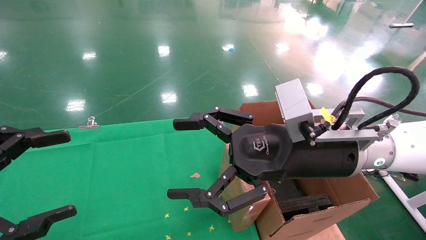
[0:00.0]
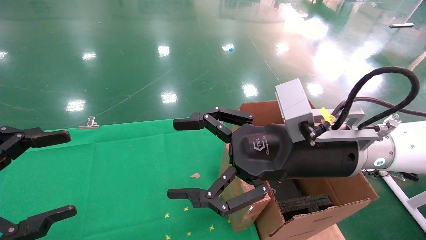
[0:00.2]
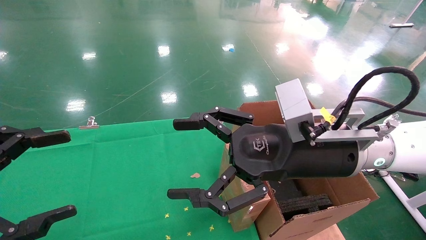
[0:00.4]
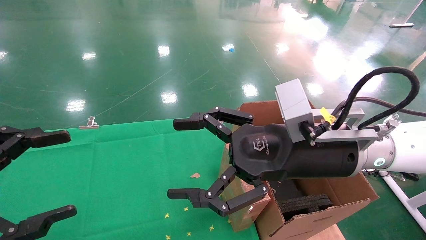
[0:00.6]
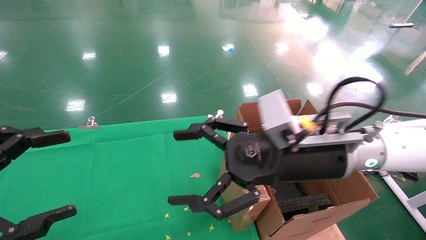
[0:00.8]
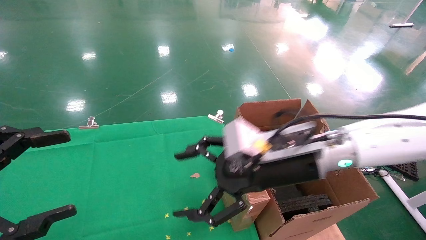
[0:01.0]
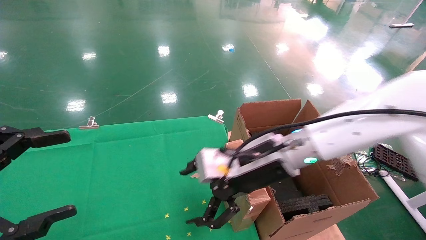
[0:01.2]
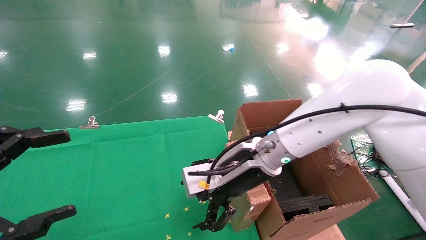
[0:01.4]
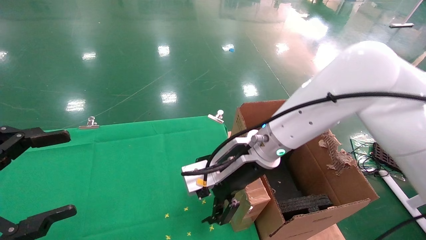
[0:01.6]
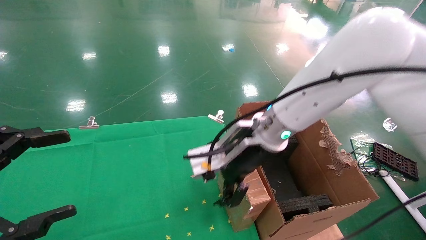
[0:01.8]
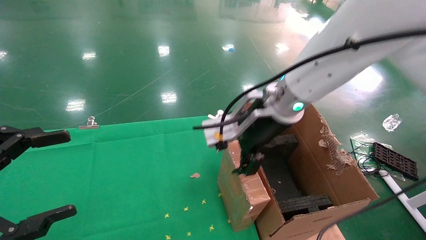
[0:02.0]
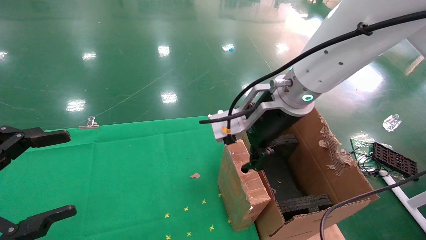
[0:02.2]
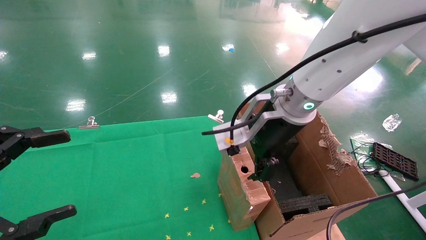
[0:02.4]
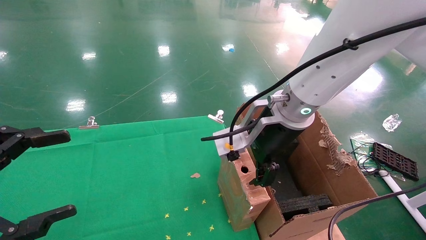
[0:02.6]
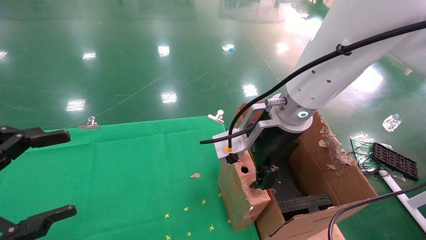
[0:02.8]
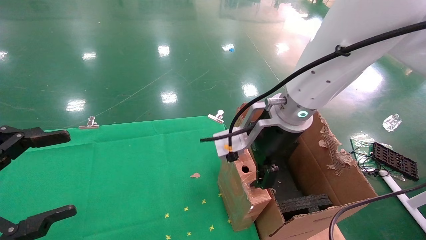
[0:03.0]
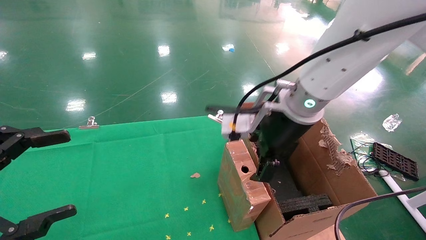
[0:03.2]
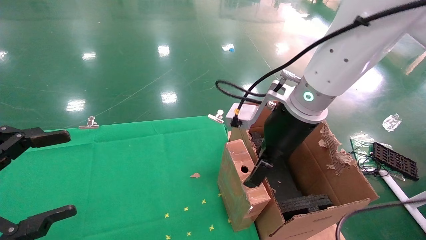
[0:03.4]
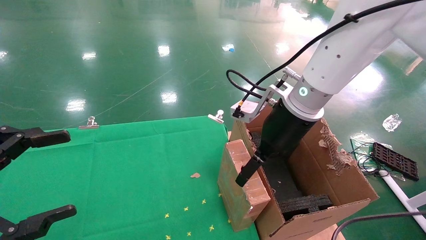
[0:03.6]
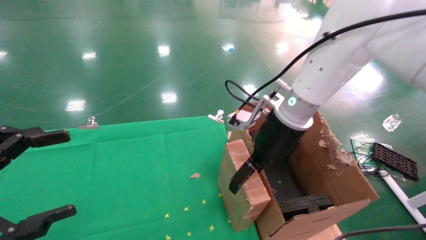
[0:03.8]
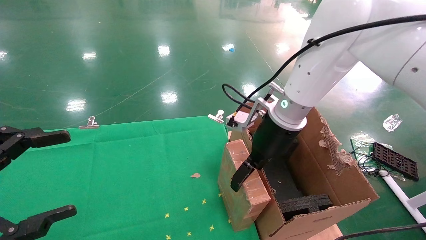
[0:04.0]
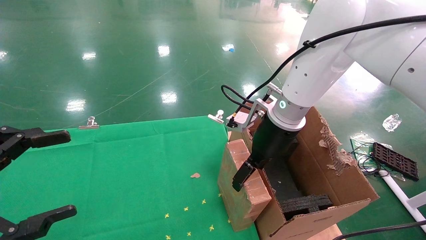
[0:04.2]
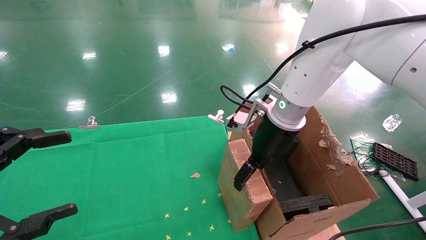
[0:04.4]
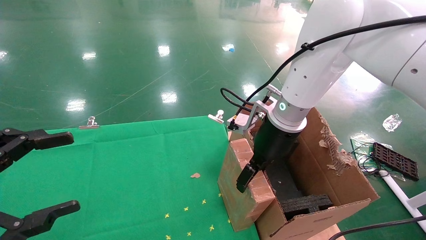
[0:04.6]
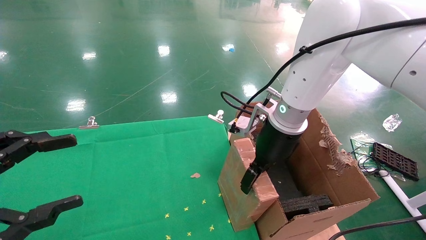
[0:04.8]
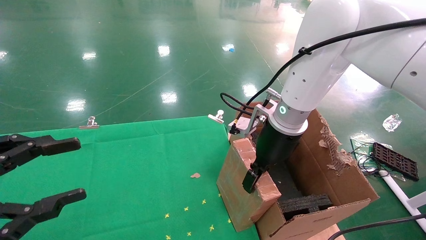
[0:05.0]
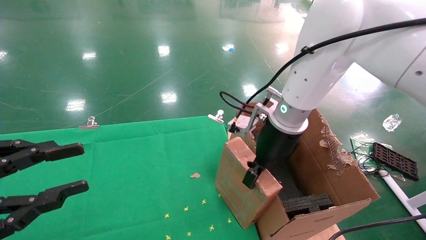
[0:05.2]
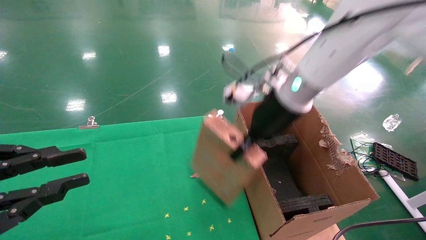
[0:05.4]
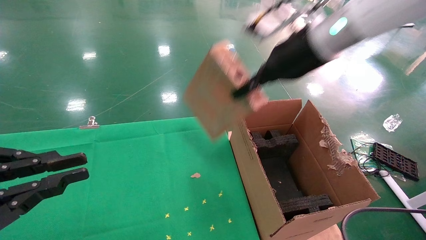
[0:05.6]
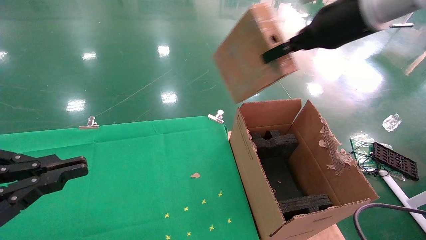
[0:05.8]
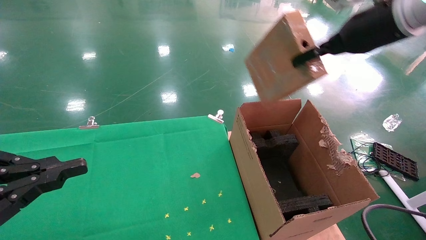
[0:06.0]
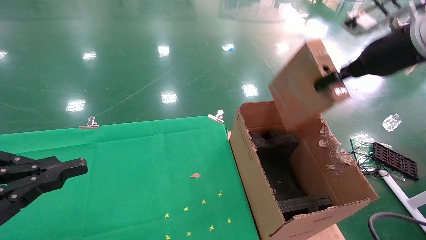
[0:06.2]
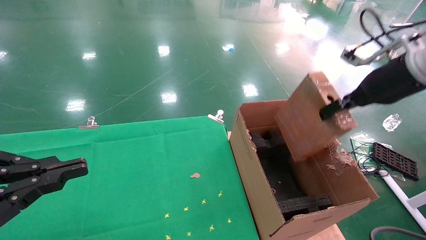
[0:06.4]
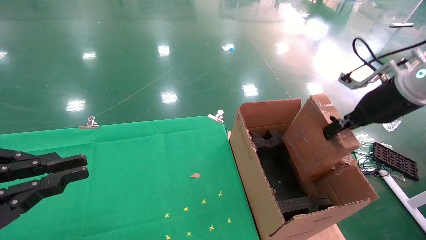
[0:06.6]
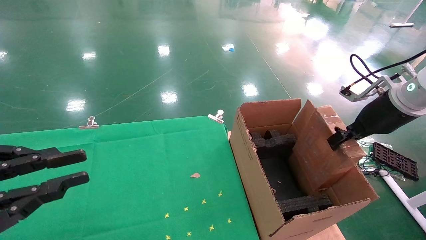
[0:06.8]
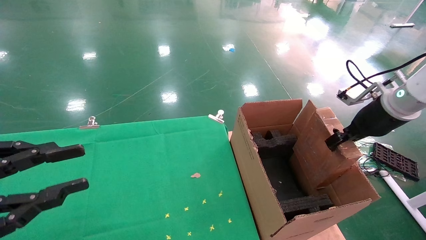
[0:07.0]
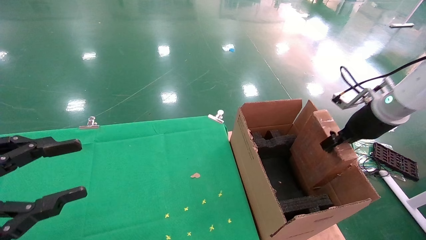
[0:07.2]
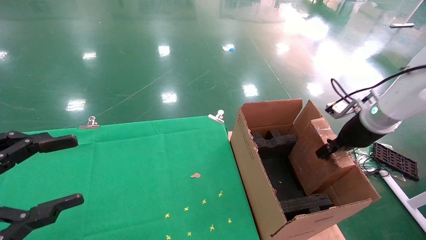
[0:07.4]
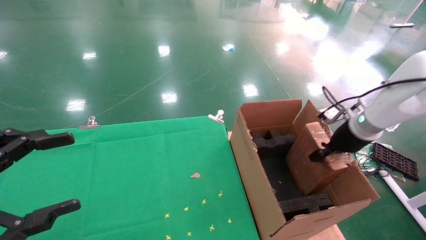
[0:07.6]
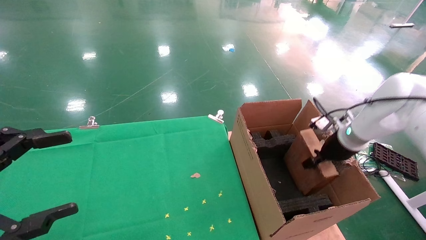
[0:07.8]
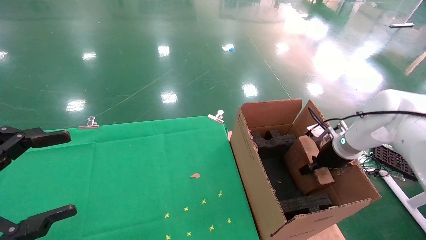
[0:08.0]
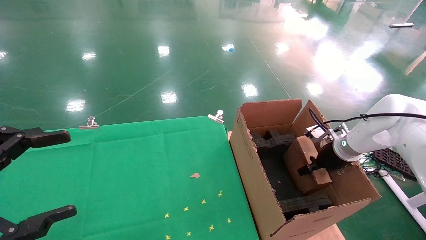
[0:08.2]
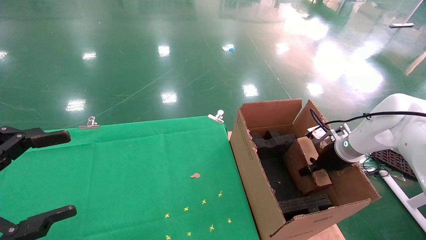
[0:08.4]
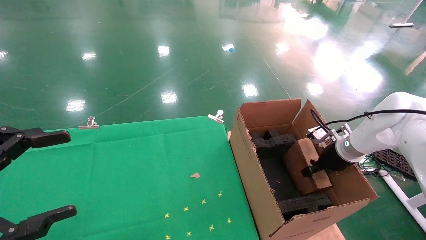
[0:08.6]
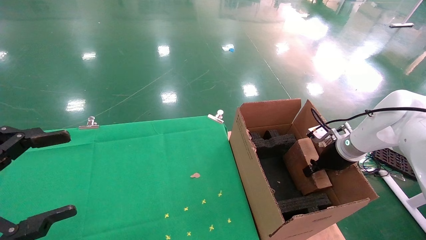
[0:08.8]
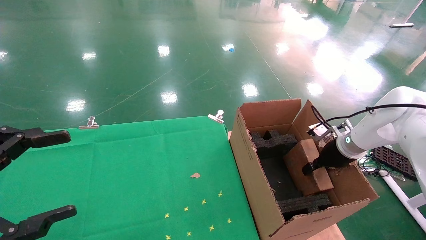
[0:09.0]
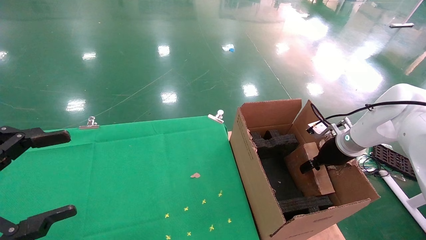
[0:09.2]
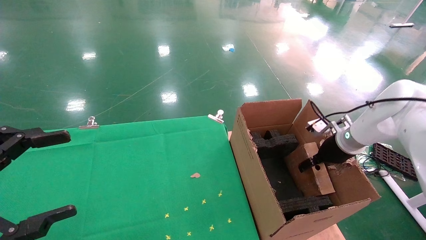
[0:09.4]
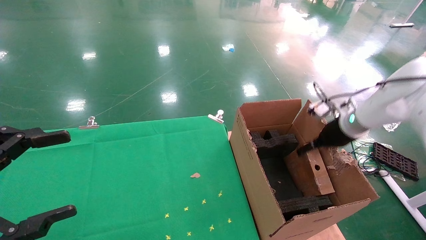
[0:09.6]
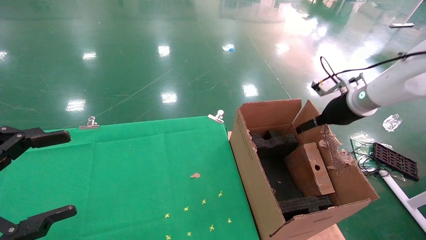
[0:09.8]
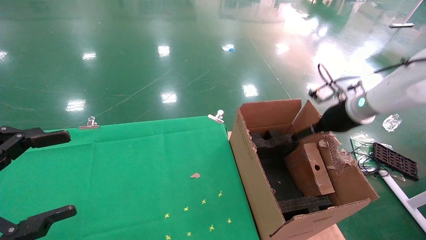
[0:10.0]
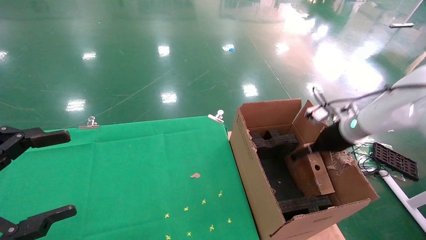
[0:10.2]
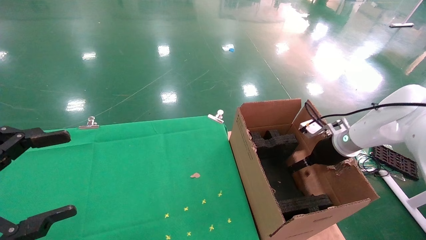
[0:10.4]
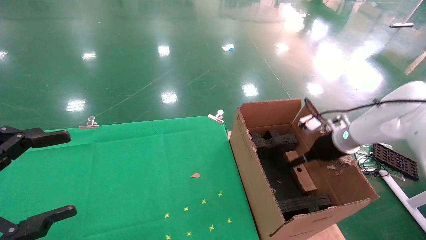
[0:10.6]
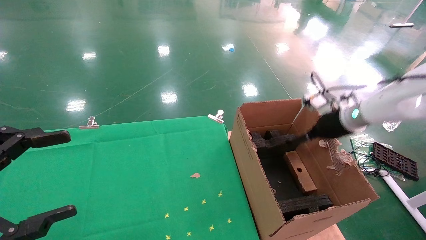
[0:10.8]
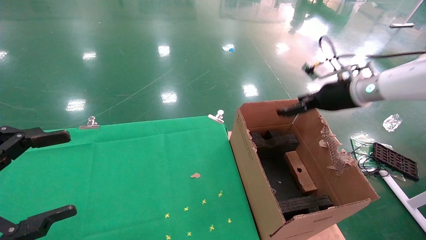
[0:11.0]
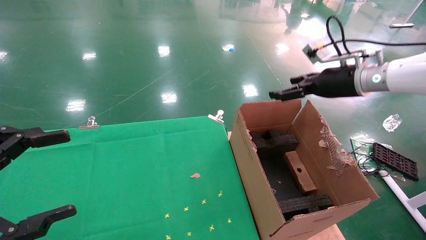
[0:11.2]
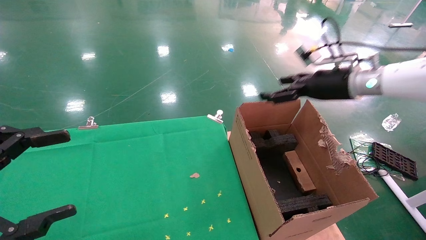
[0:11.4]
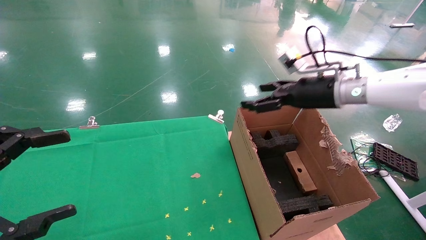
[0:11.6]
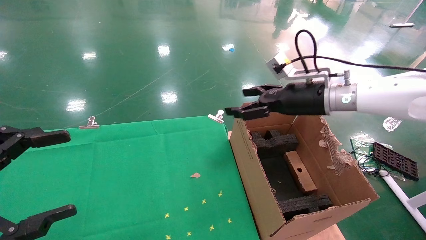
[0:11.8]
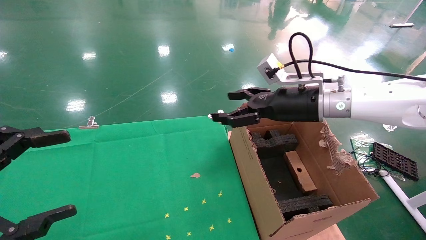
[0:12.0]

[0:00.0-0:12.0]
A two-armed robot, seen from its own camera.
Task of the whole recording: using a robotic arm to pick up a cardboard box and palace it the carton.
Step, 0:00.8 to 0:05.0: Pick up the mouse and the power cord paper box.
Step, 0:05.2 to 0:09.0: Place the mouse and the power cord paper box into the container.
0:00.0 to 0:01.6: The right gripper heads forward and to the left, covering approximately 10 cm.
0:01.6 to 0:03.0: The right gripper travels upward by approximately 5 cm.
0:03.0 to 0:04.4: The right gripper ends up approximately 5 cm from where it was.
0:04.4 to 0:06.0: The left gripper closes up; the right gripper heads to the right and upward, covering some 20 cm, and closes up.
0:06.0 to 0:07.6: The right gripper heads downward, covering approximately 20 cm, while the left gripper opens up.
0:07.6 to 0:09.0: The right gripper moves downward, approximately 5 cm.
0:09.0 to 0:10.4: The right gripper moves about 10 cm upward and comes back, and opens up.
0:10.4 to 0:12.0: The right gripper shifts about 20 cm to the left and upward.

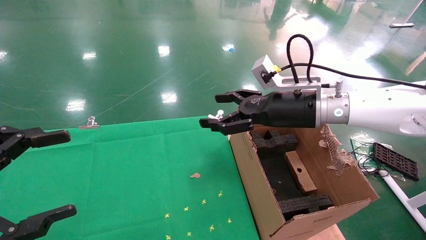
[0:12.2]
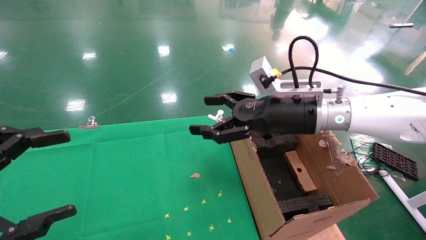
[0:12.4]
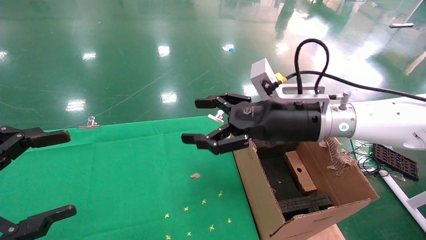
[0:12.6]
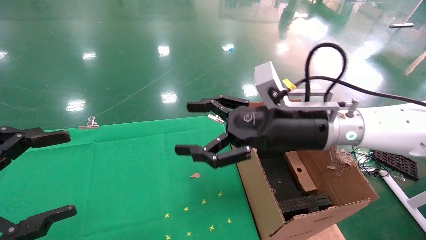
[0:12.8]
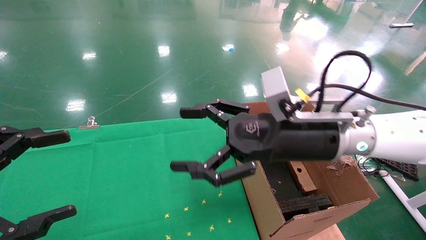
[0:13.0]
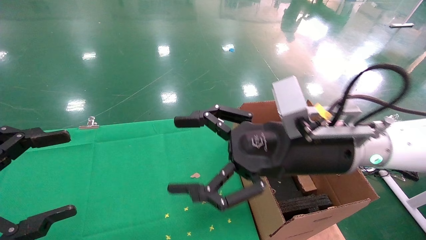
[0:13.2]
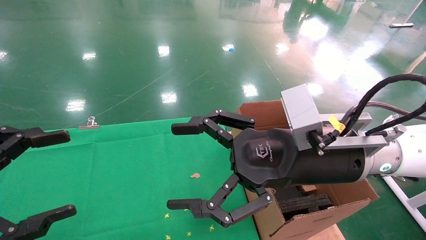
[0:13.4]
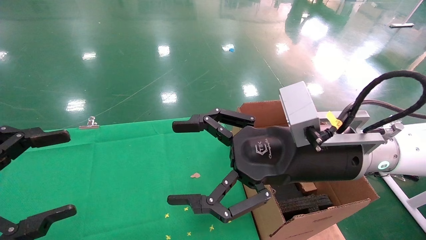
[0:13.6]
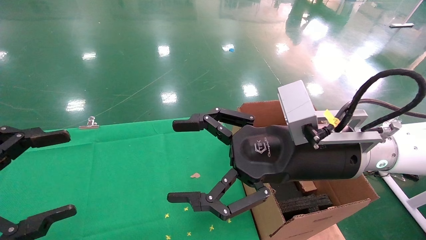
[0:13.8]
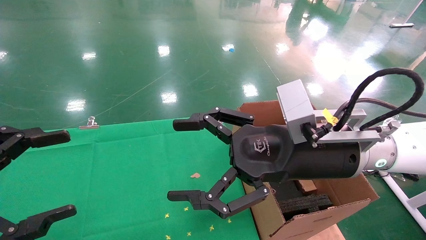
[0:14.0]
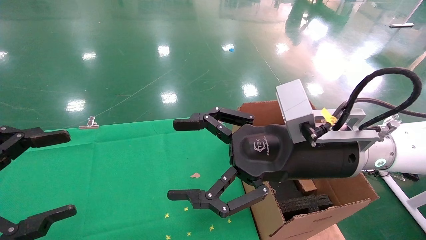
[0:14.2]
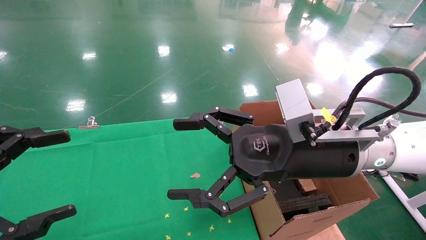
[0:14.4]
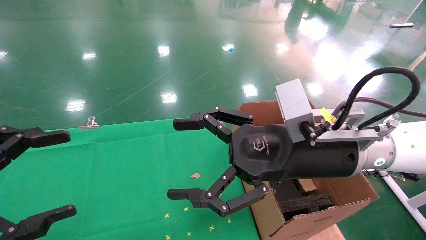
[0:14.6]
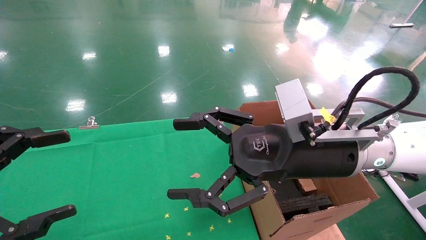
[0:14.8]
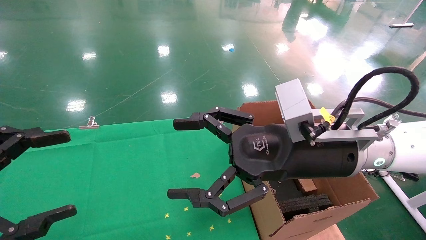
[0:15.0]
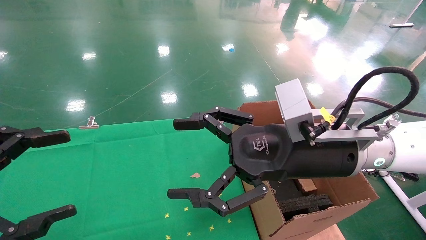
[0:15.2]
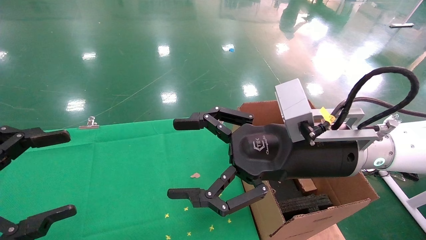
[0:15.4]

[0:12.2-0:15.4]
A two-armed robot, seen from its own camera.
Task of the whole recording: using a robotic arm to pick up a cardboard box and palace it the carton.
0:12.2 to 0:13.8: The right gripper moves backward and to the left, roughly 15 cm.
0:13.8 to 0:15.4: The two grippers keep their place.
